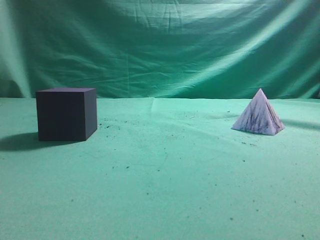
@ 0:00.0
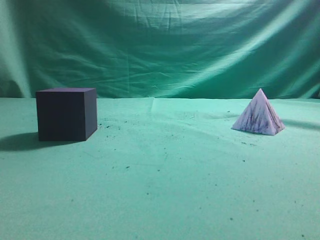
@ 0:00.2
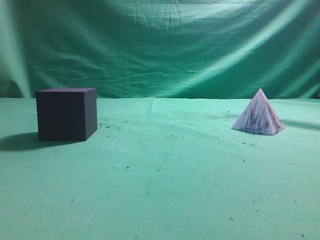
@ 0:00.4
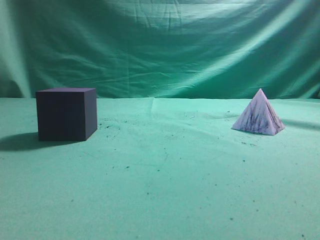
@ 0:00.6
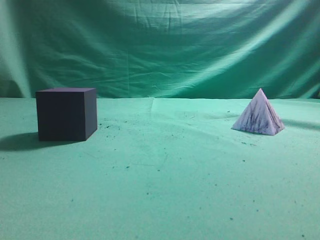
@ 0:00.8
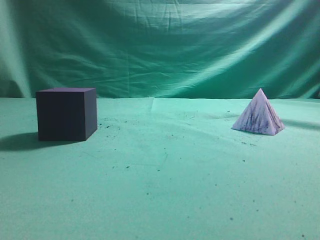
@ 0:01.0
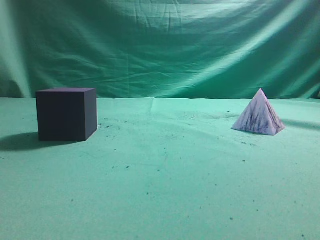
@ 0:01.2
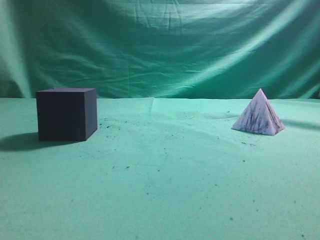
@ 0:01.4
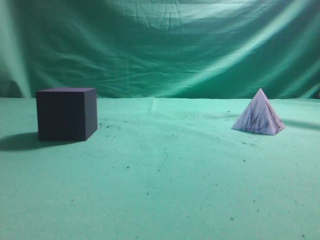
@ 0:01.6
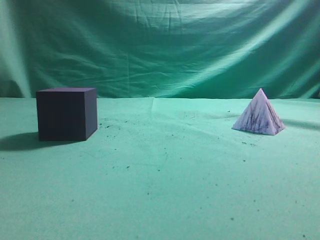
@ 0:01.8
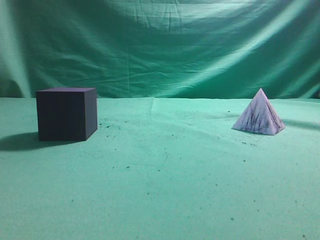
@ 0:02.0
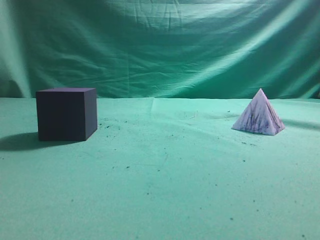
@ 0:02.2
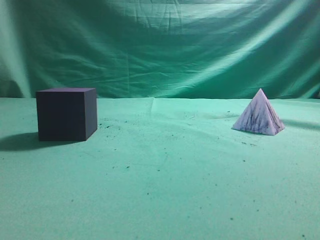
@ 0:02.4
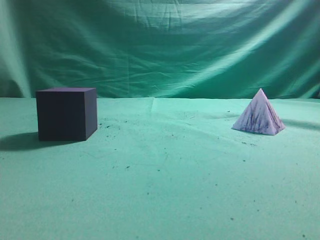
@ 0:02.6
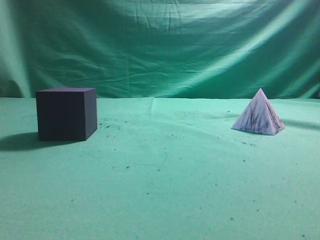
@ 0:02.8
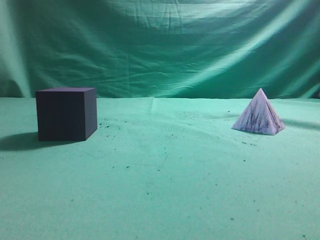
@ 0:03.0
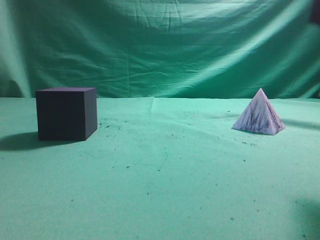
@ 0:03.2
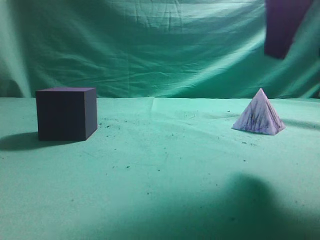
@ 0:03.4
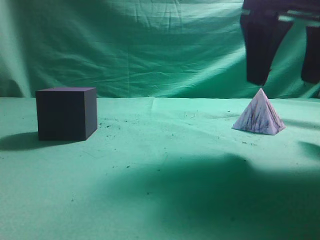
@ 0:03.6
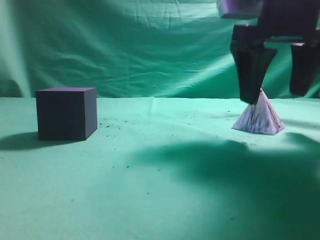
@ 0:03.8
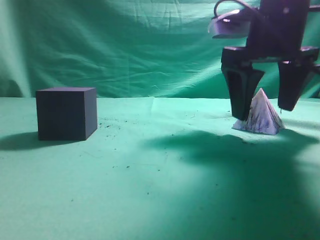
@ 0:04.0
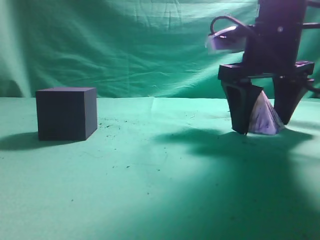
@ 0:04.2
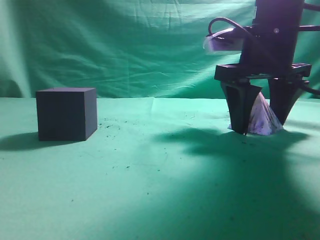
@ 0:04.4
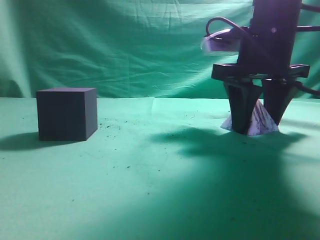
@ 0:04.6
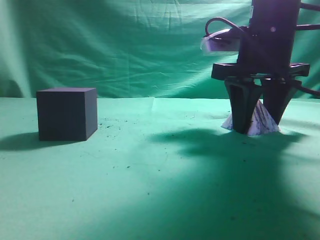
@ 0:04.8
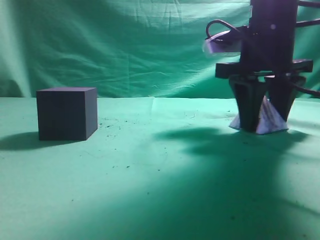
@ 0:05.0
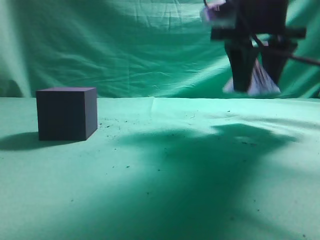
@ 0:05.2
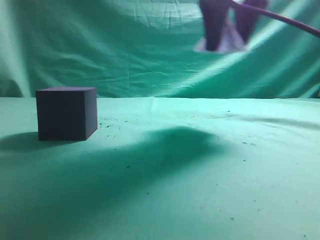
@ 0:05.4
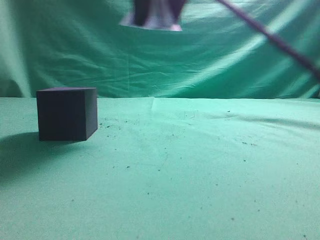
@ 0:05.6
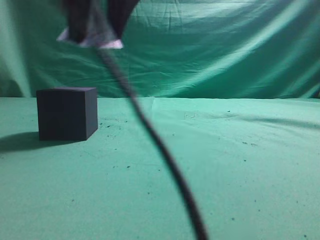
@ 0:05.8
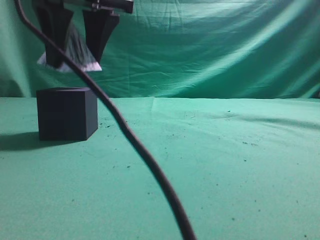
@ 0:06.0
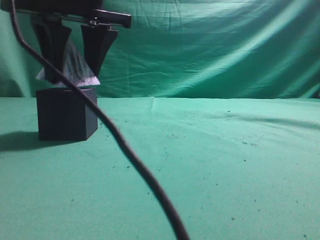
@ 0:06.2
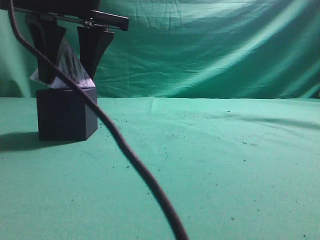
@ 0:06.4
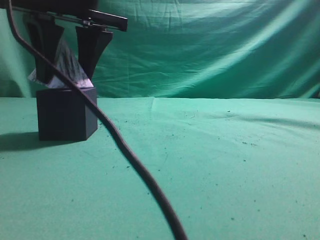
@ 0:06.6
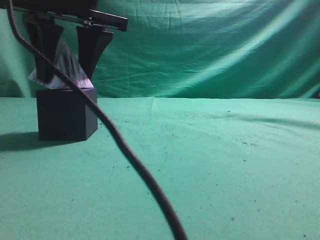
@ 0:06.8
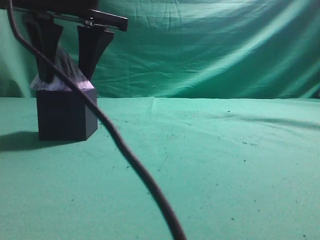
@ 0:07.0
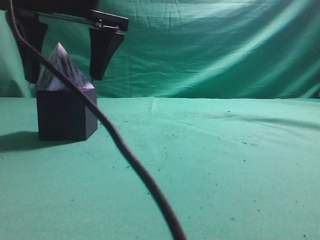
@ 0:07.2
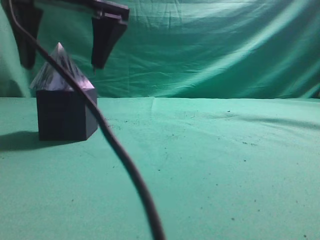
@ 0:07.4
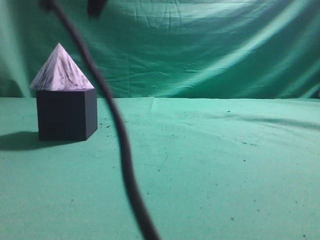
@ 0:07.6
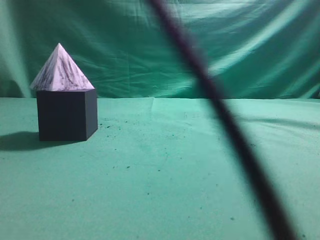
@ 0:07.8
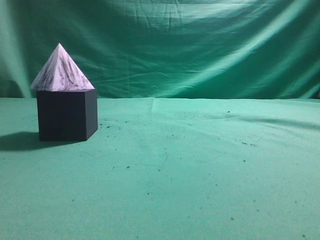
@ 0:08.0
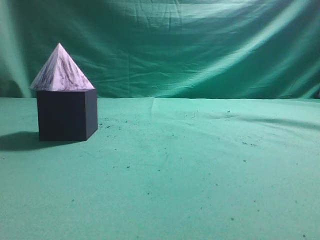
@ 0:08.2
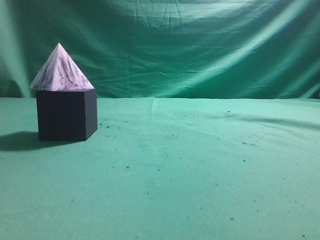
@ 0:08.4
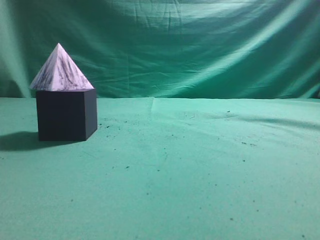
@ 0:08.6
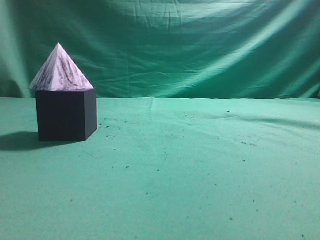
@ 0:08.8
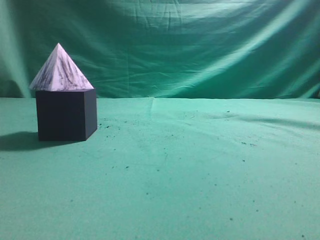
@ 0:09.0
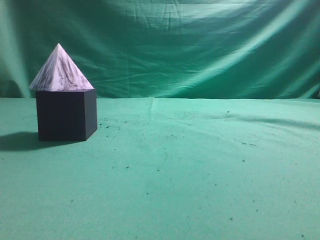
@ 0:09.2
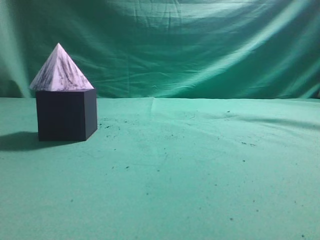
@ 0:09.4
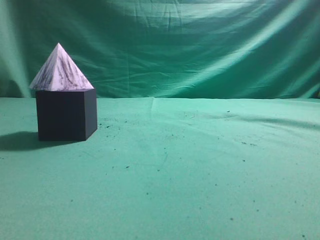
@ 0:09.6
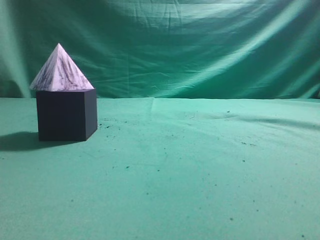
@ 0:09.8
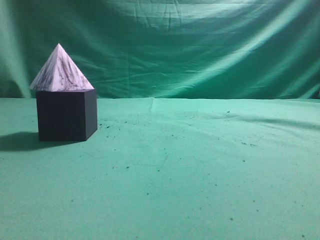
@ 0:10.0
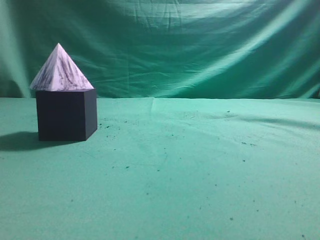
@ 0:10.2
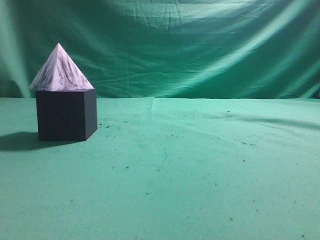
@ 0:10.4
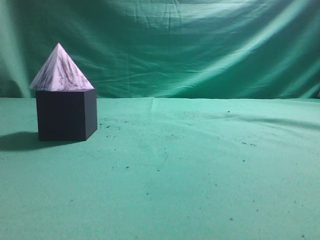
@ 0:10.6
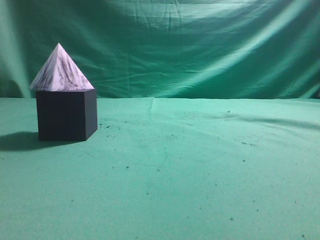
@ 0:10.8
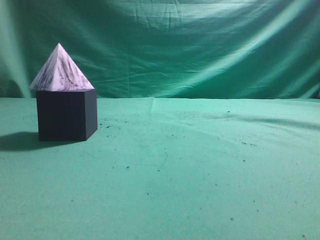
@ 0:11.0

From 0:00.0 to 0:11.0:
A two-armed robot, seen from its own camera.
Task of the whole recording: pick up the square pyramid from the table and place it on the cube block.
Step, from 0:00.0 to 0:05.0: Grasp the triangular block.
Step, from 0:05.2 to 0:07.4: Place the block onto the cube-shaped block.
From 0:01.6 to 0:03.2: The right gripper travels forward, to the left and upward by some 20 cm, and opens up.
From 0:03.2 to 0:04.8: The right gripper heads forward, downward and to the left, covering roughly 20 cm, and opens, then closes once more.
From 0:04.8 to 0:06.2: The right gripper moves to the left, some 25 cm.
From 0:06.2 to 0:07.8: The right gripper is displaced upward by some 15 cm, and closes up.
From 0:07.8 to 0:09.4: The right gripper shifts approximately 40 cm to the right and backward.
